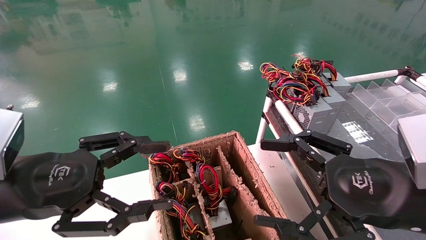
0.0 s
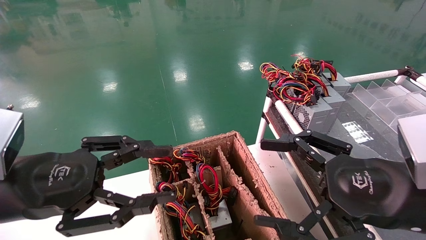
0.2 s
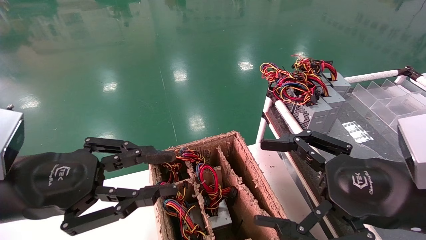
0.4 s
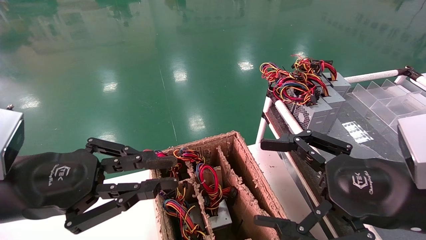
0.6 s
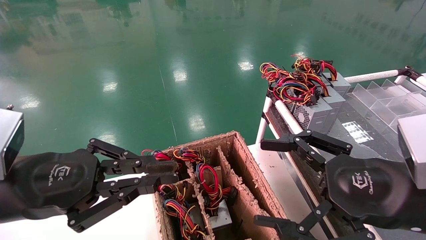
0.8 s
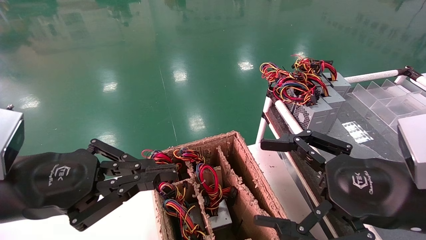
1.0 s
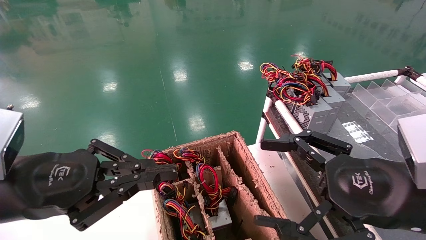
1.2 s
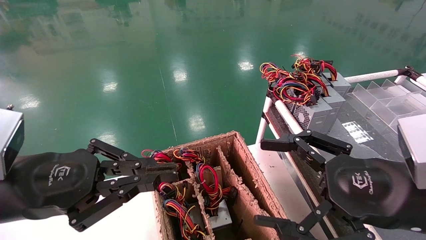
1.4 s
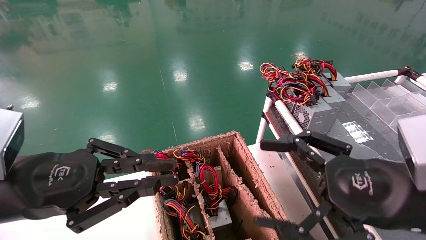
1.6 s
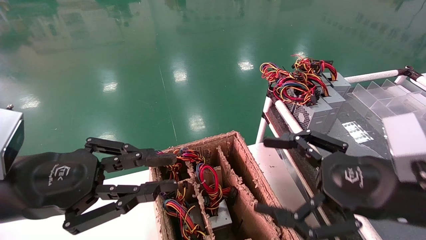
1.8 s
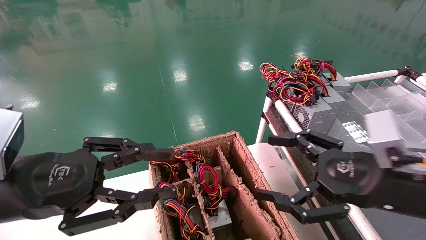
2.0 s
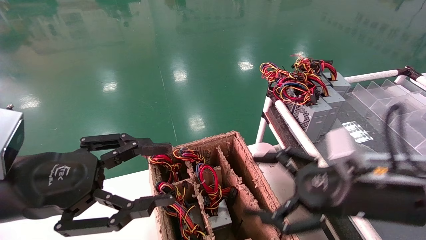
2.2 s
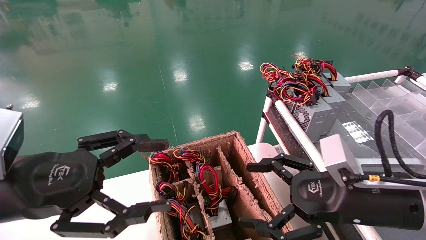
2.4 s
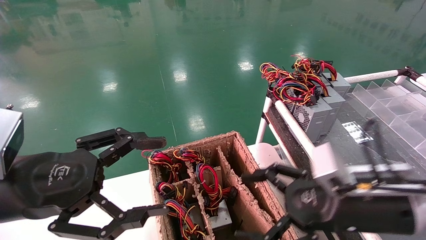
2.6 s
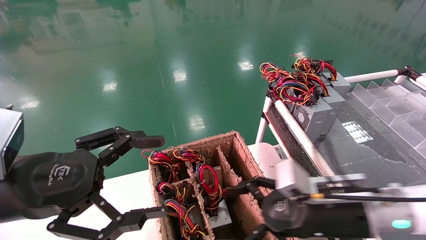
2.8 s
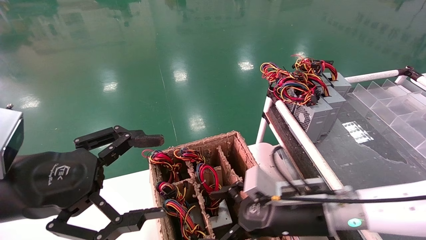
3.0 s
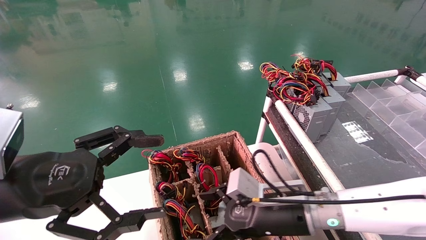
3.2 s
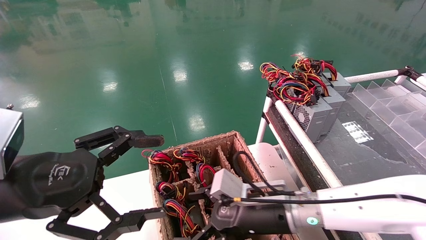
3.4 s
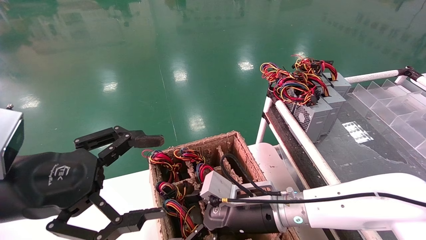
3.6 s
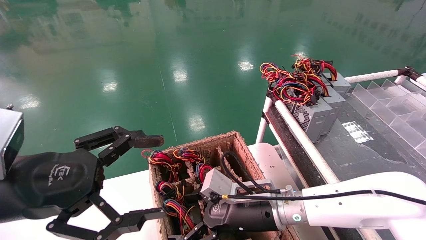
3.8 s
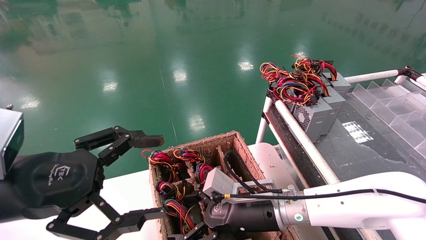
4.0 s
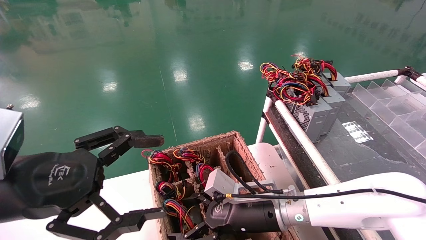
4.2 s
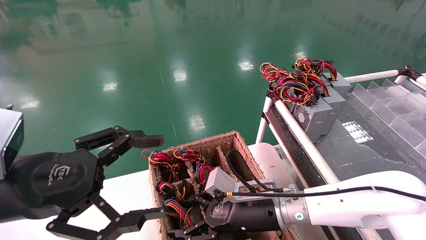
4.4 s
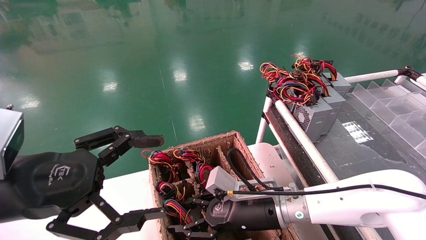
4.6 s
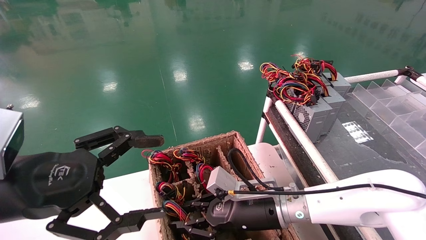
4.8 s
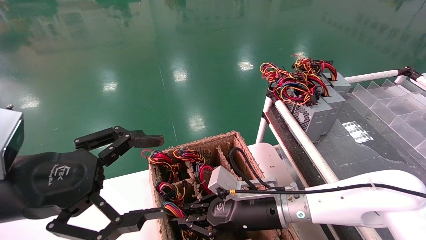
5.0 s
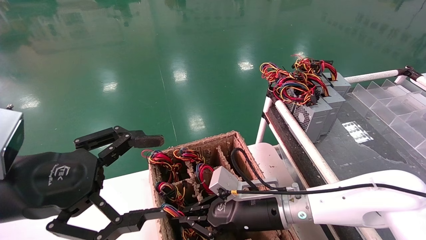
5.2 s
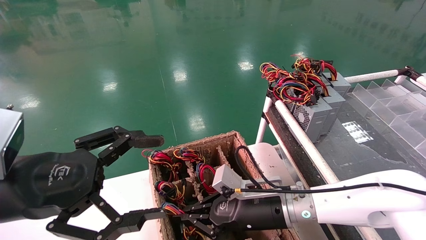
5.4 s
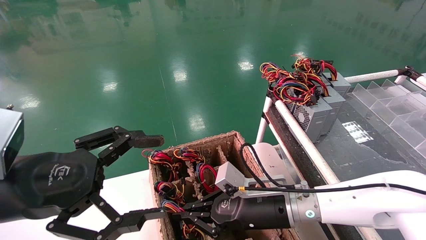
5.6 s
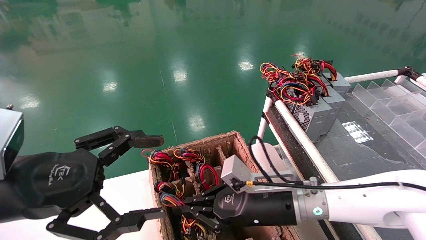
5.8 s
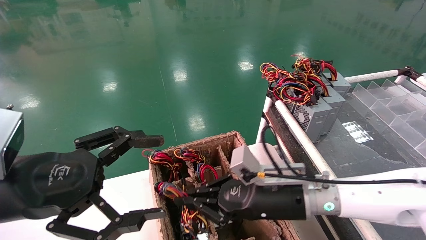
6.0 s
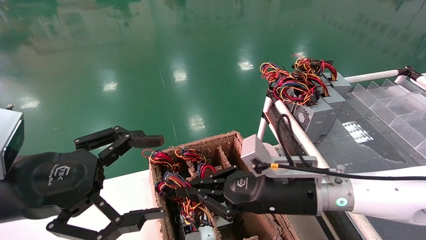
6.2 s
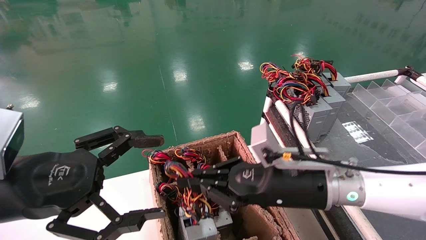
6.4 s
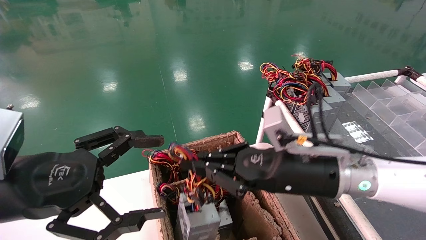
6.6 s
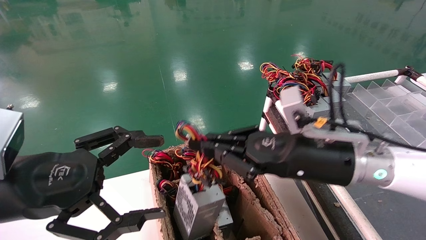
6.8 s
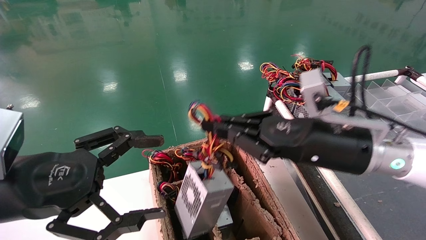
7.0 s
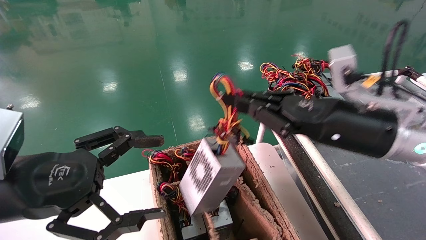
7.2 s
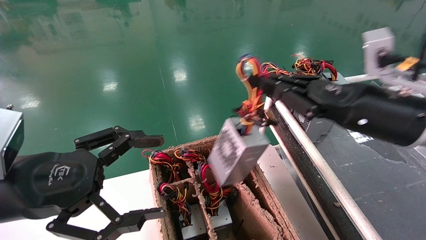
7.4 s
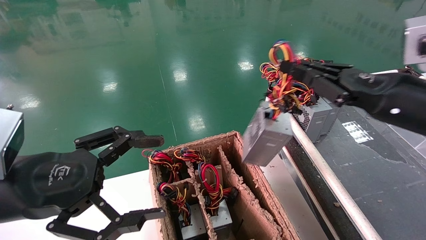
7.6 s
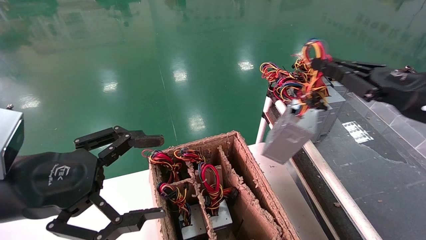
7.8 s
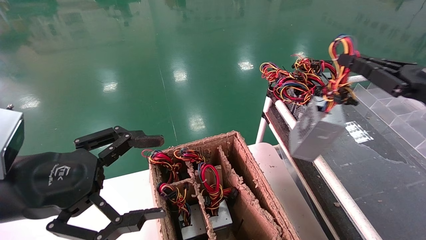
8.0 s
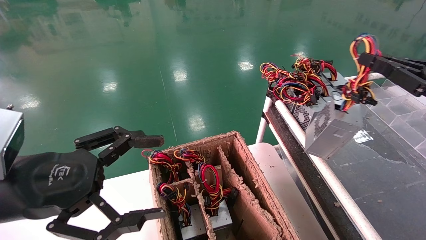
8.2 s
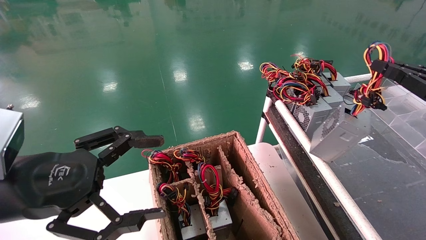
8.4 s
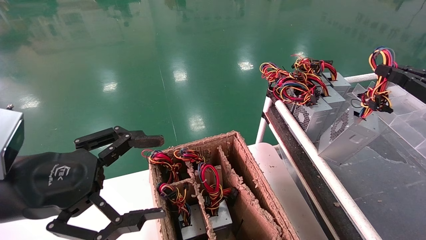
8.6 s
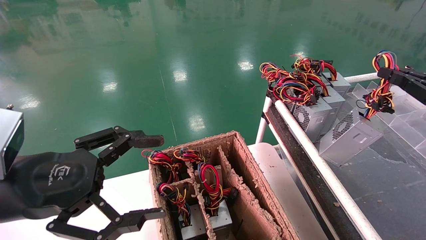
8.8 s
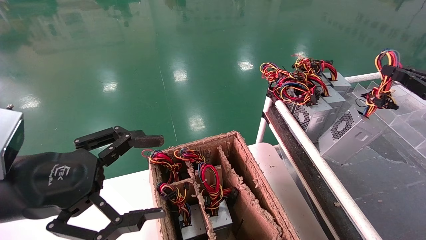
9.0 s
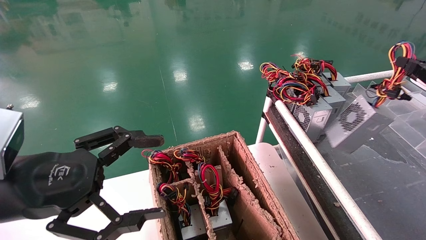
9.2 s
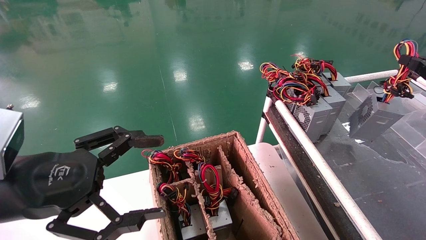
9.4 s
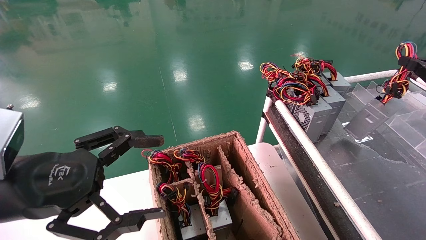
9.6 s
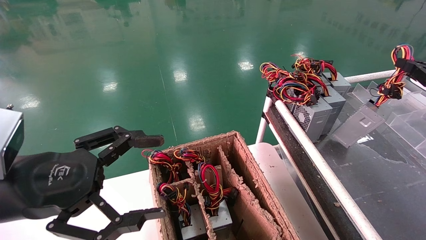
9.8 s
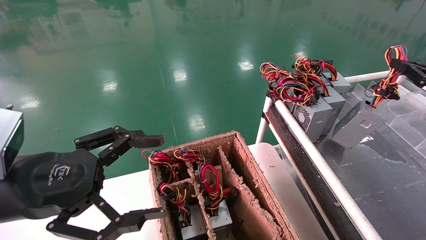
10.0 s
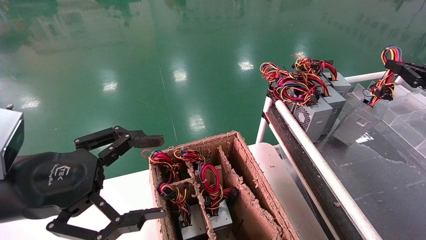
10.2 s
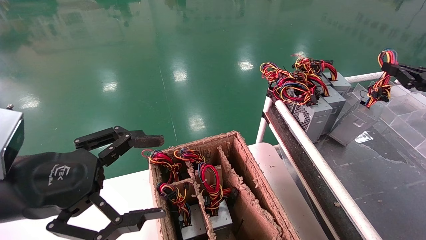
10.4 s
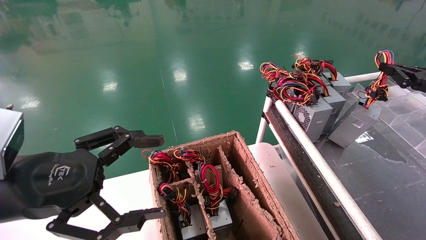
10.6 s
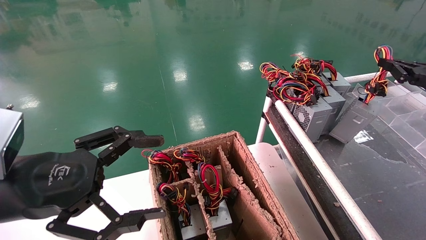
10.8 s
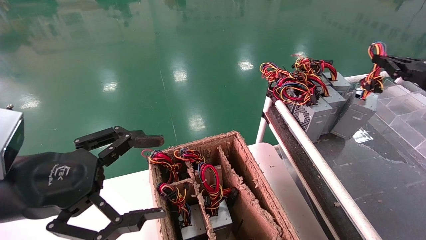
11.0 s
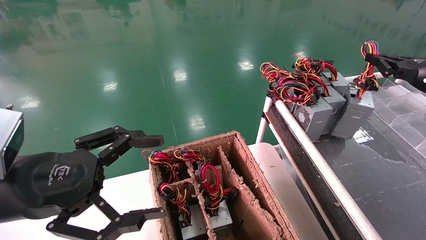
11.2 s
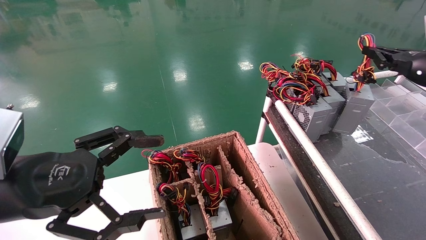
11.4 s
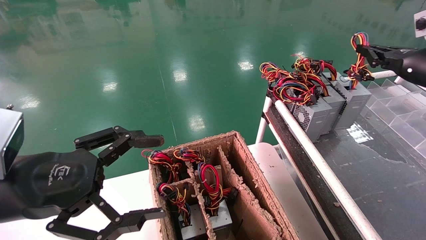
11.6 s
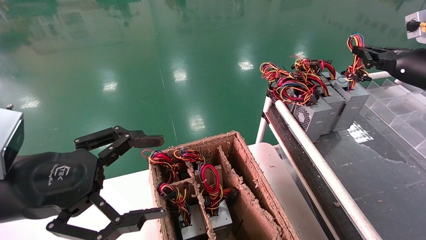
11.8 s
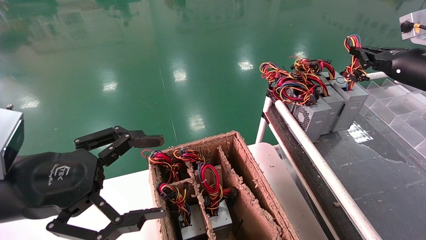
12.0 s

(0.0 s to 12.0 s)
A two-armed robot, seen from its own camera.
Step, 1.2 s - 5.2 s: Grab and lift the power supply from the large box.
0.0 s - 1.6 s: The left gripper closes up.
1.6 s - 3.0 s: The left gripper opens its fingers. The right gripper goes approximately 15 cm downward, to the left and forward.
3.0 s - 4.4 s: The right gripper goes approximately 5 cm to the left.
4.4 s - 6.0 s: The right gripper moves some 5 cm, and closes.
6.0 s - 7.6 s: The right gripper goes roughly 25 cm to the right and upward.
7.6 s - 9.0 s: The right gripper shifts some 15 cm to the right.
9.0 s - 10.4 s: The right gripper heads forward, covering roughly 5 cm.
10.4 s - 12.0 s: The right gripper shifts roughly 10 cm to the left and forward.

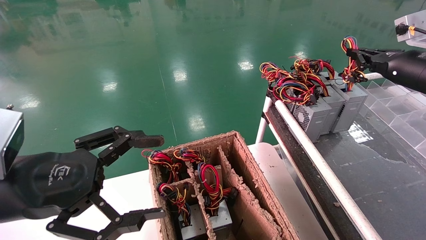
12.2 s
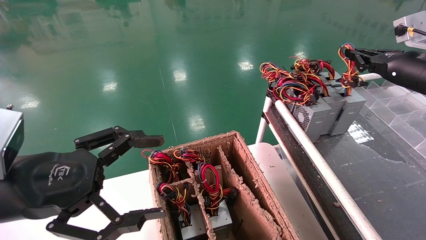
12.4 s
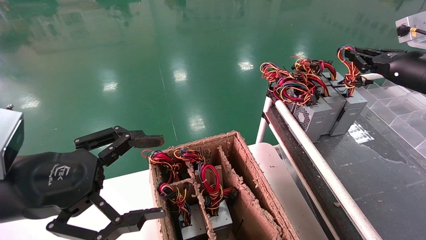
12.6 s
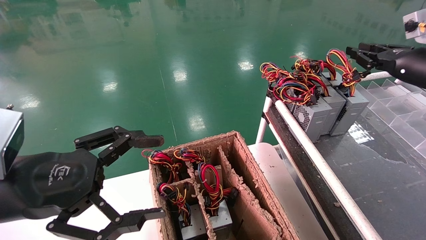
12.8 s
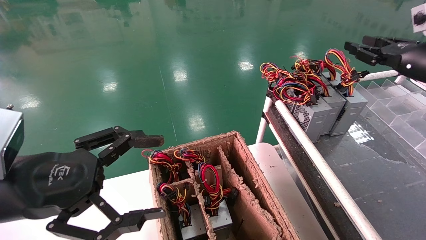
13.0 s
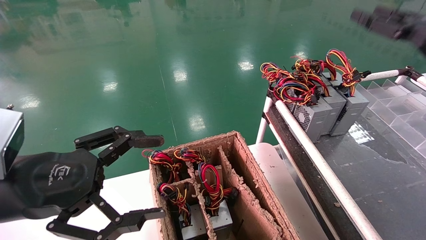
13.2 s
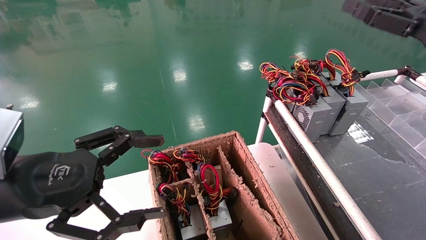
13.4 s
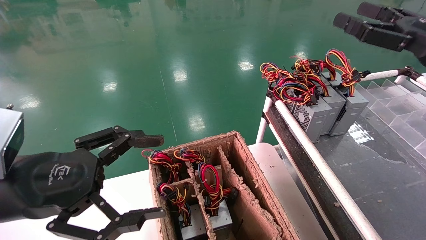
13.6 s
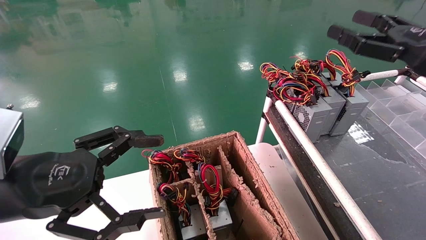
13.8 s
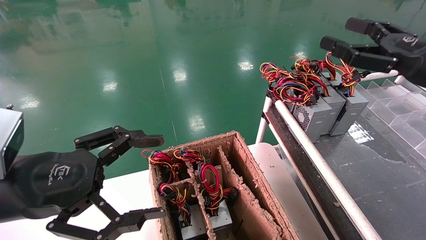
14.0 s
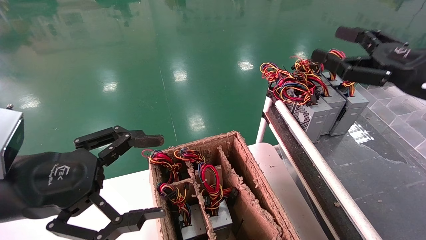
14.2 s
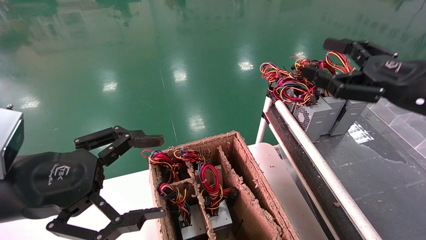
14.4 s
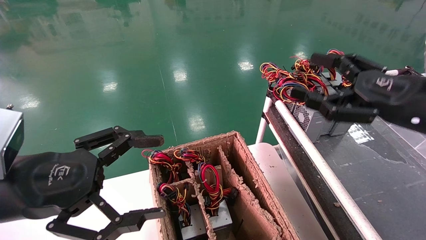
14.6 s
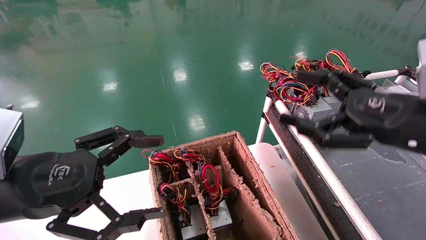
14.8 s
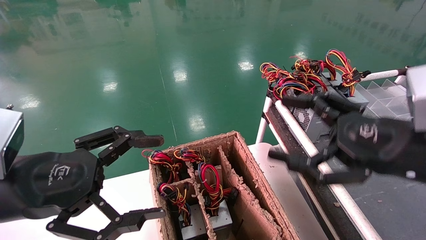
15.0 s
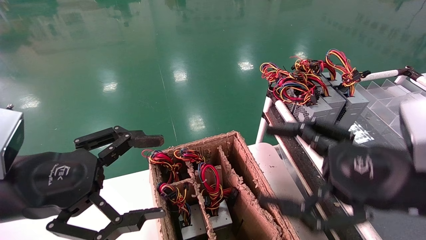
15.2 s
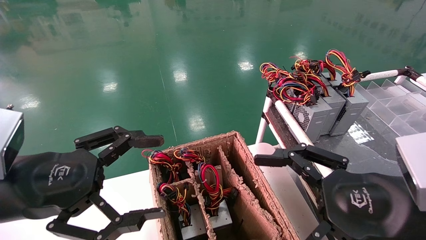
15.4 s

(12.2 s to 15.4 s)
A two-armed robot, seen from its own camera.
12.2 s - 13.8 s: The right gripper heads backward, covering approximately 10 cm, and opens its fingers.
13.8 s - 15.4 s: The right gripper moves backward, to the left and downward, approximately 20 cm.

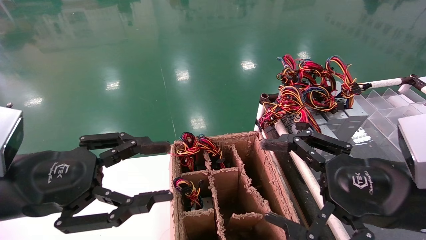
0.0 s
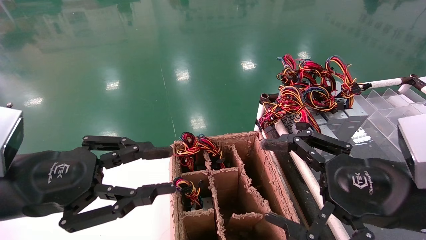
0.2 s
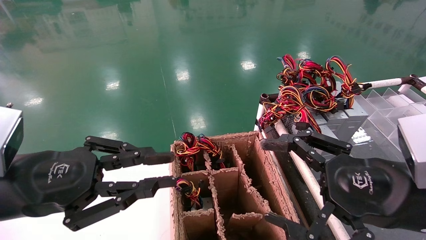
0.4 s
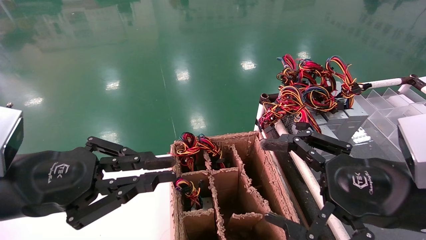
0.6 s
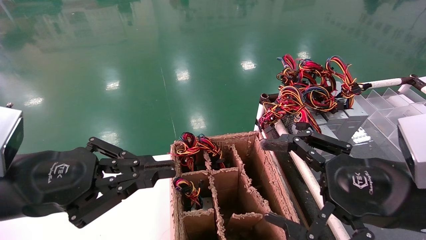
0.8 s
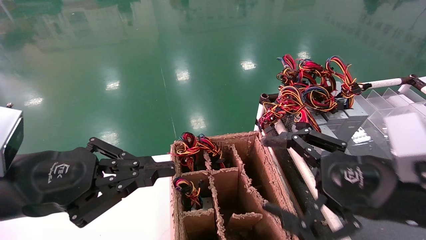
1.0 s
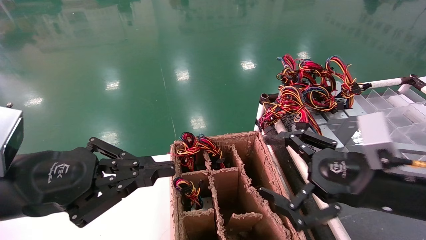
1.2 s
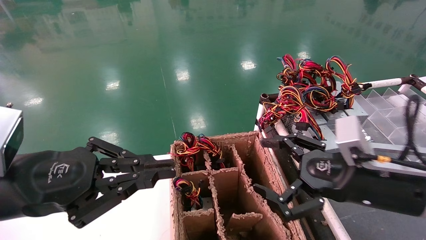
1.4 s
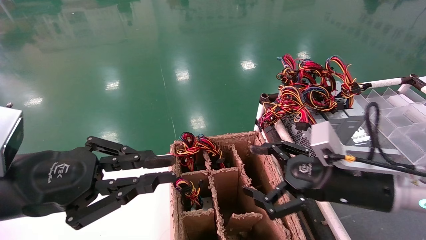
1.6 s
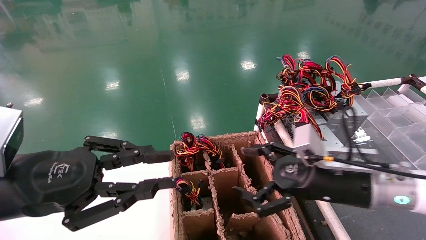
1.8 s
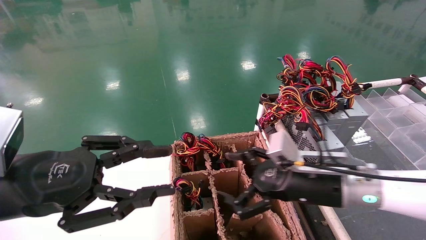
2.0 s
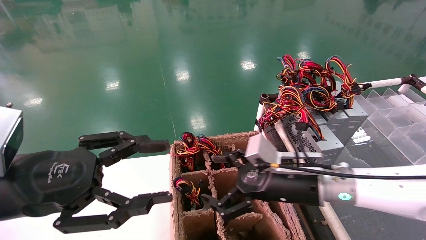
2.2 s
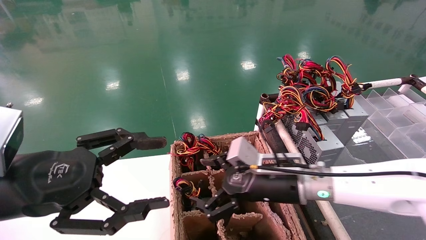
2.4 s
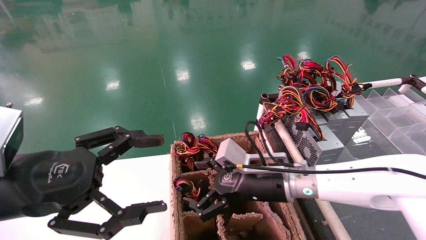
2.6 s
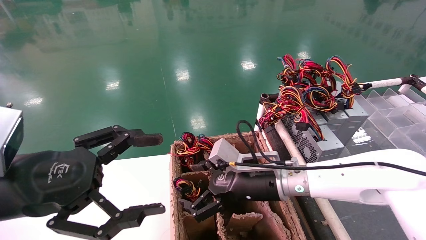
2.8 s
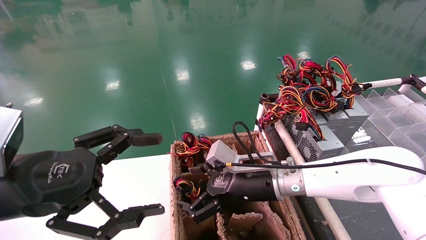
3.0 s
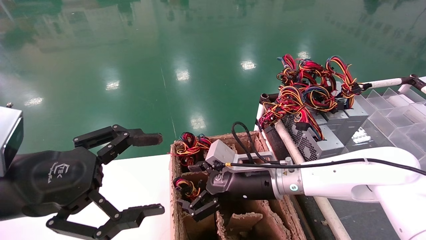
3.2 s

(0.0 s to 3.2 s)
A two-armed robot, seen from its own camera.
0.0 s - 1.6 s: The left gripper closes up. Meanwhile the right gripper heads forward, covering about 10 cm.
1.6 s - 3.2 s: The left gripper opens, while the right gripper shifts roughly 15 cm to the left and forward.
